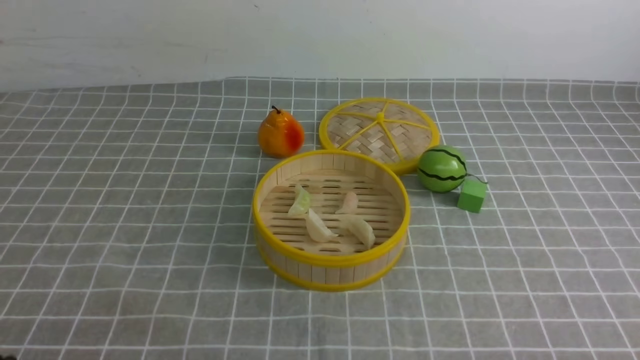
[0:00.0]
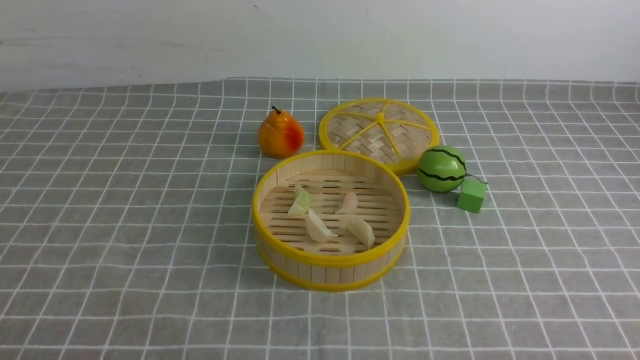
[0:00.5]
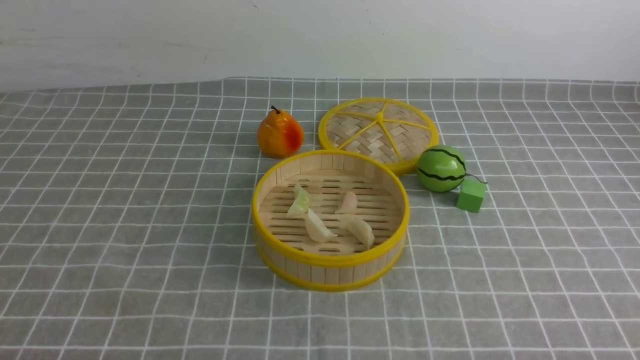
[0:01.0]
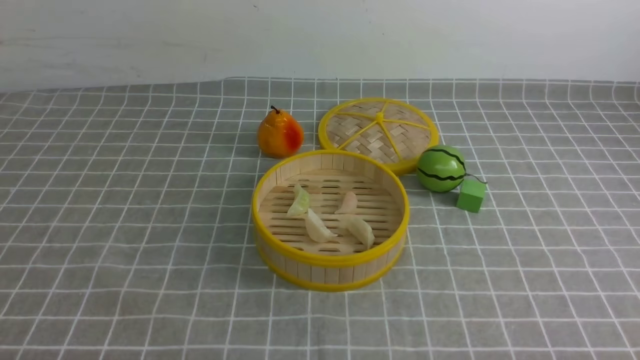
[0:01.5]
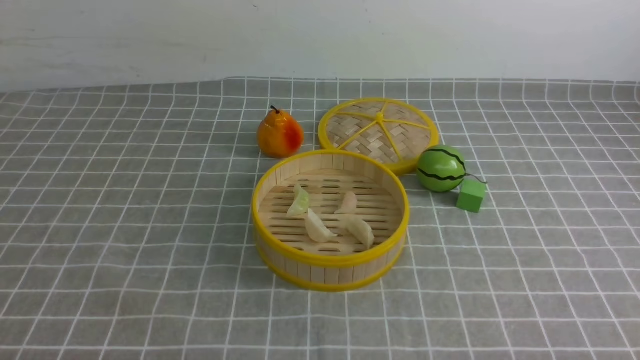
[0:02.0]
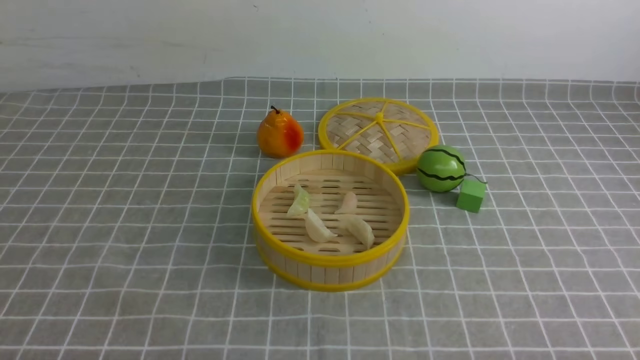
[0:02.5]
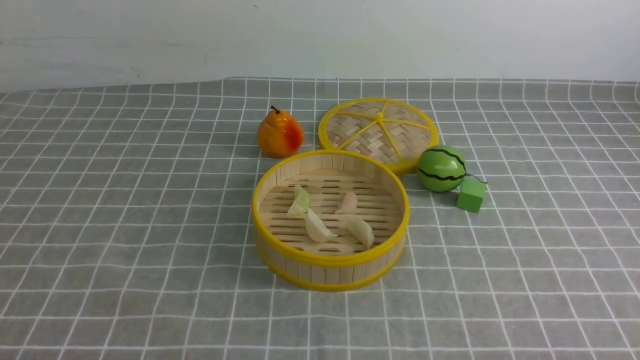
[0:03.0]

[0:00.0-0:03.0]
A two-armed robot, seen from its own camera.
Task of the whole recording: put the dumplings into the steamer on the table with the grey tablecloth.
0:01.5 to 0:03.0: Both grippers stay put.
